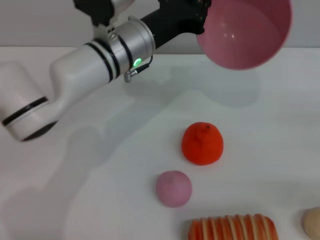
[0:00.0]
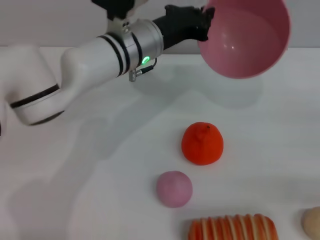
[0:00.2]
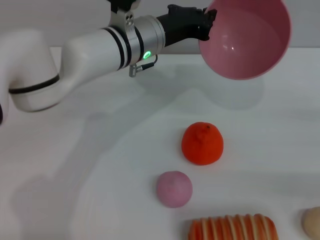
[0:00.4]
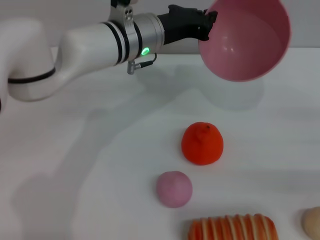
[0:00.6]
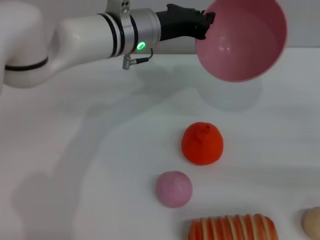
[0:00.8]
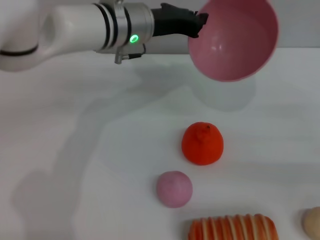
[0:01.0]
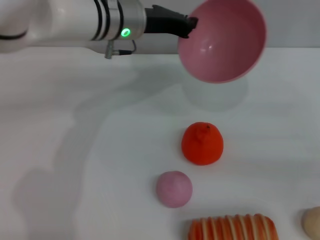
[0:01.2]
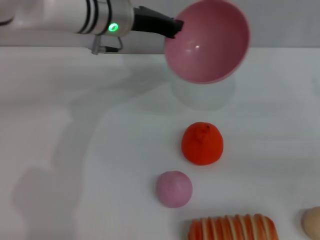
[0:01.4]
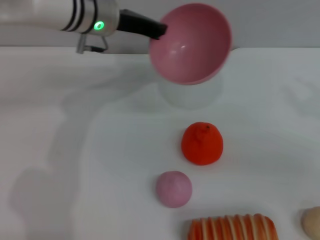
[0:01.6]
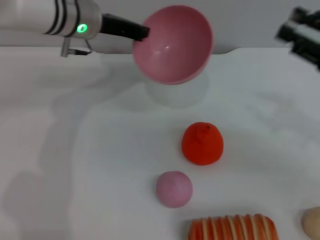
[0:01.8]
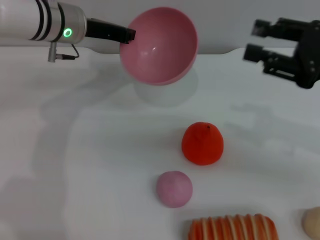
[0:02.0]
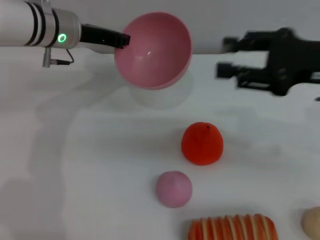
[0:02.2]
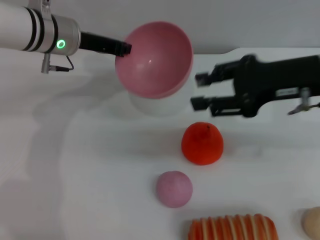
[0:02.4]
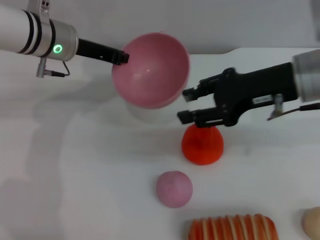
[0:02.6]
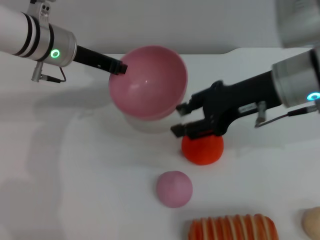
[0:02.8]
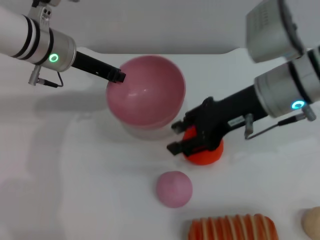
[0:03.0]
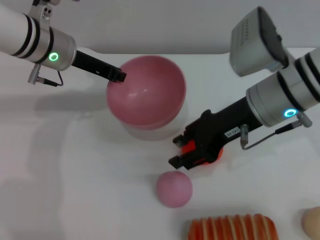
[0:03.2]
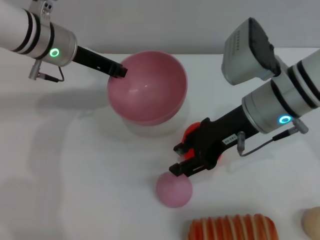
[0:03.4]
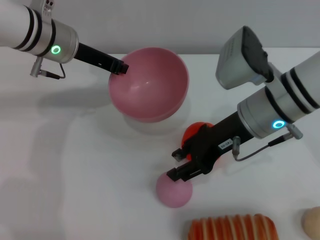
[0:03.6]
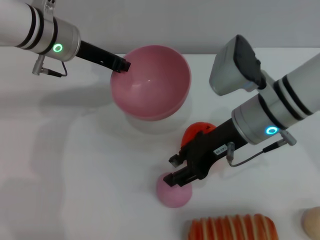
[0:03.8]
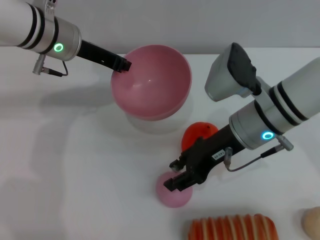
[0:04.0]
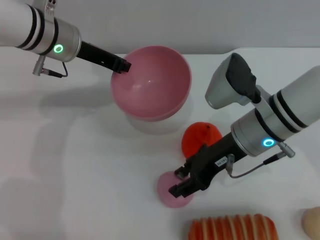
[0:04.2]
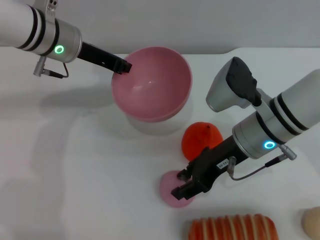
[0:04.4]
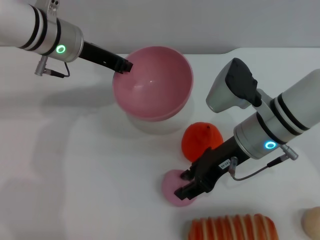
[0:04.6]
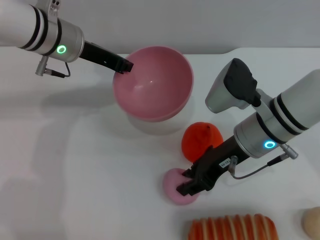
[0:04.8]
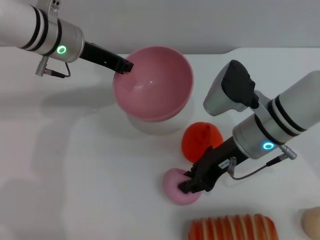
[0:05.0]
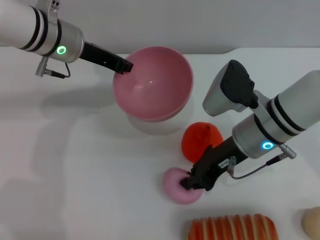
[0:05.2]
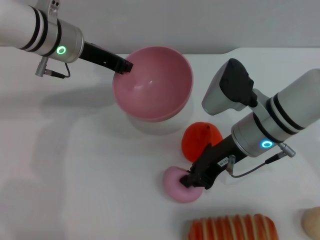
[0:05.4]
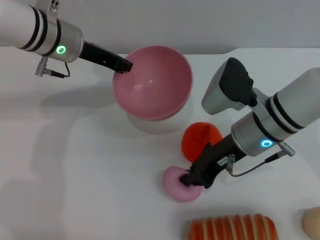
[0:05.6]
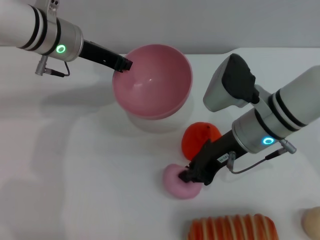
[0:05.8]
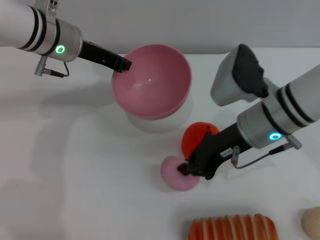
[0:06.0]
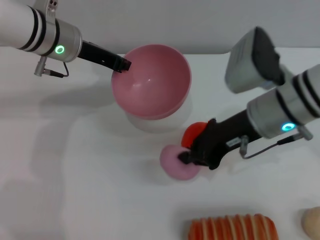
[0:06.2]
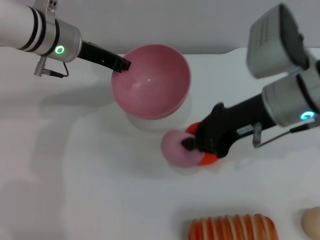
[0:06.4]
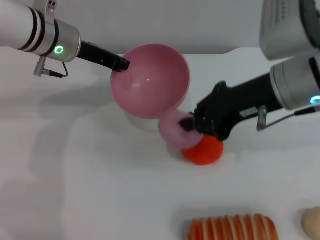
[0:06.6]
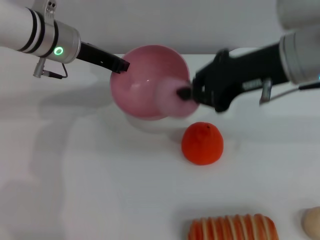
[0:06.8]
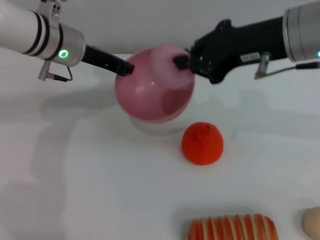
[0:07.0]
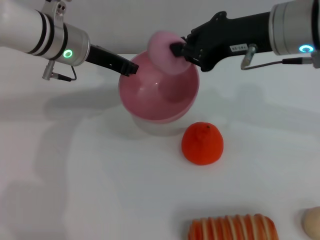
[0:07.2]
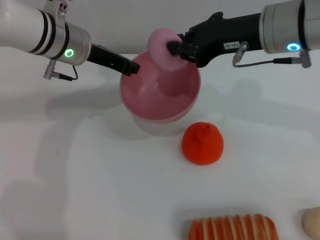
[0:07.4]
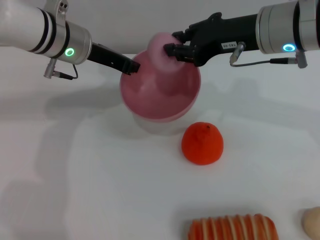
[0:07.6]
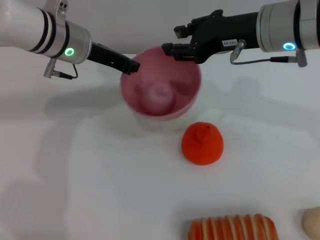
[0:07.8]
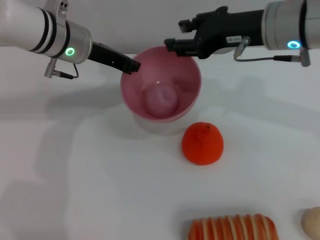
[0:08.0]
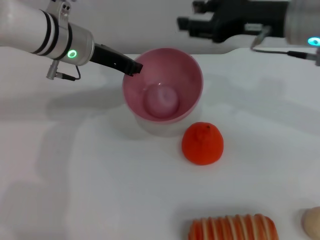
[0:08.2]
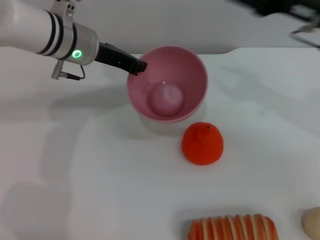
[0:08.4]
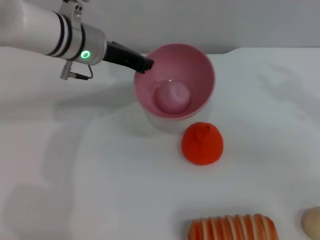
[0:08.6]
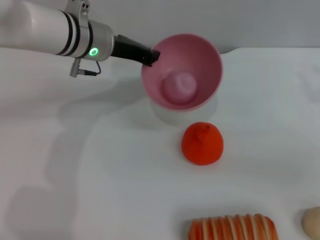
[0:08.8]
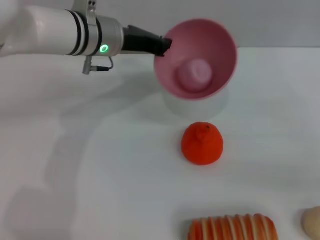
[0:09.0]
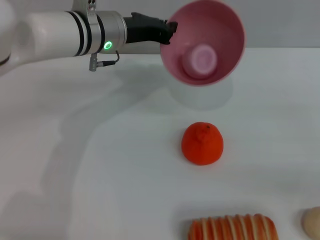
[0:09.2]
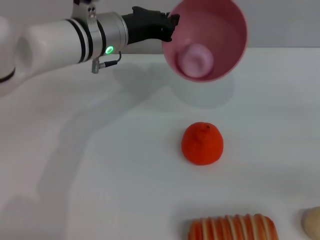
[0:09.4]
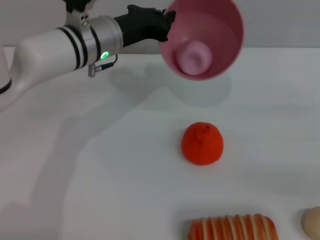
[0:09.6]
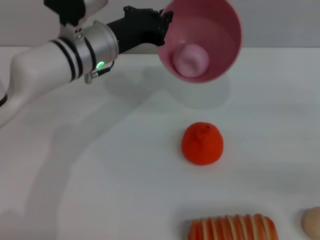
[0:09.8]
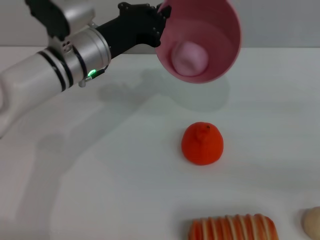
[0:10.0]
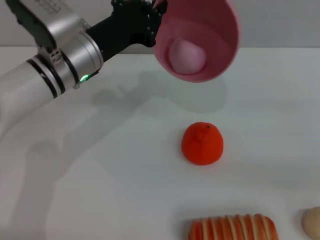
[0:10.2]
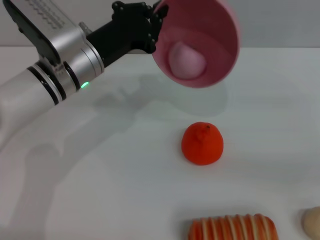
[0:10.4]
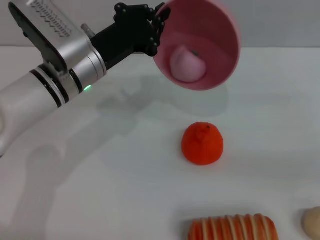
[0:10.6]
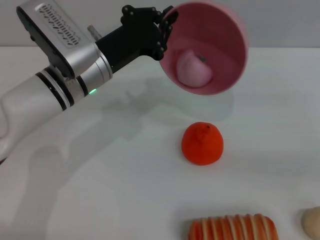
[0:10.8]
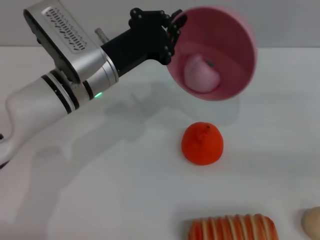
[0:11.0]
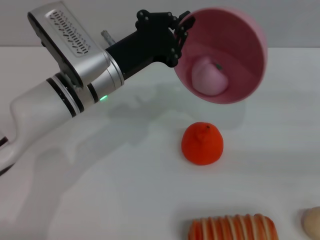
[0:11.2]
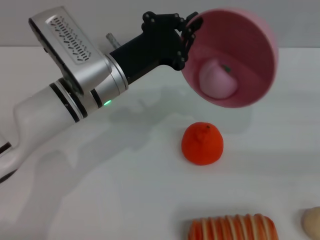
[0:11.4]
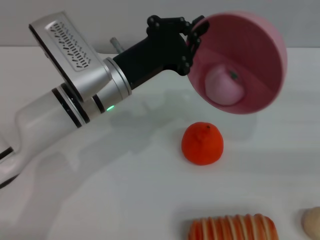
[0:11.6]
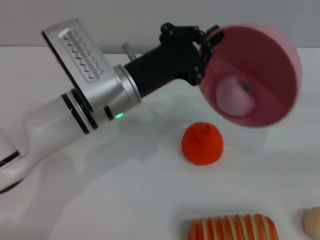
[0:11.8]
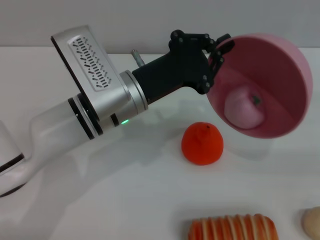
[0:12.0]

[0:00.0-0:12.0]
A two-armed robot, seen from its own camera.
Task of the whole recording: put the peach into the pink bowl and pour it out repeatedly.
Step, 0:00.0 to 0:06.2: Pick up the peach with the right gripper.
Step, 0:06.4 to 0:08.0: Place the peach into the bowl.
0:00.0 to 0:01.6: The left gripper is displaced forward by approximately 5 cm. The right gripper goes approximately 10 cm to the left.
0:01.6 to 0:03.0: The left gripper goes some 5 cm to the left. The right gripper travels to the left by roughly 20 cm.
0:03.0 to 0:04.4: The right gripper moves downward, approximately 5 cm.
0:04.4 to 0:06.0: The right gripper closes.
0:06.0 to 0:07.6: The right gripper travels upward by roughly 10 cm.
0:07.6 to 0:09.0: The right gripper goes some 25 cm to the right and backward, and opens up.
0:09.0 to 0:10.4: The left gripper moves backward, roughly 5 cm.
0:10.4 to 0:12.0: The left gripper moves to the right, some 5 cm.

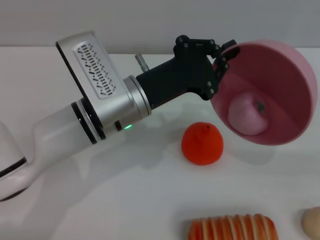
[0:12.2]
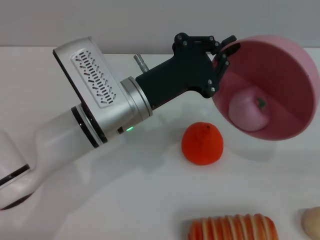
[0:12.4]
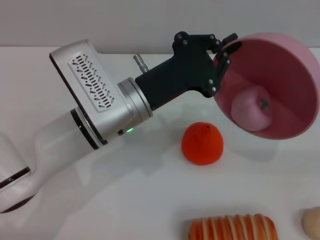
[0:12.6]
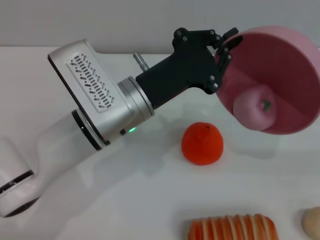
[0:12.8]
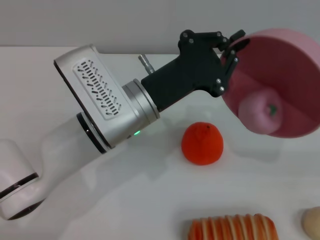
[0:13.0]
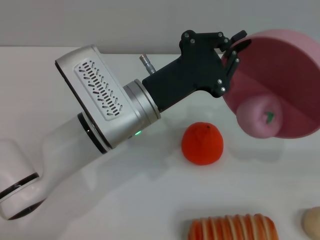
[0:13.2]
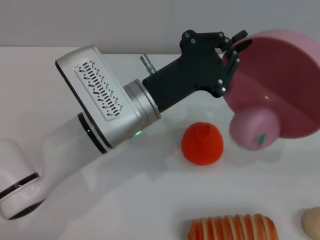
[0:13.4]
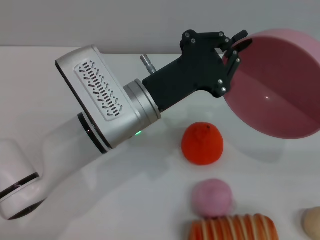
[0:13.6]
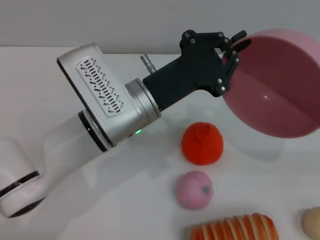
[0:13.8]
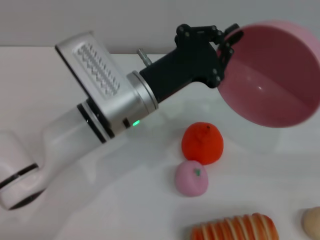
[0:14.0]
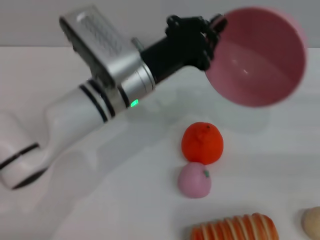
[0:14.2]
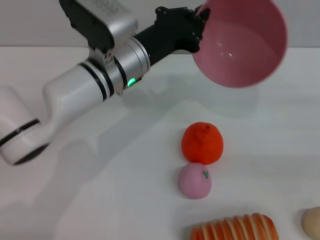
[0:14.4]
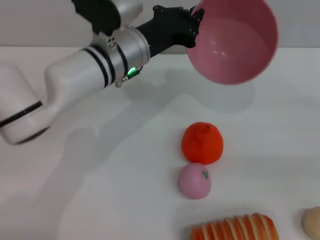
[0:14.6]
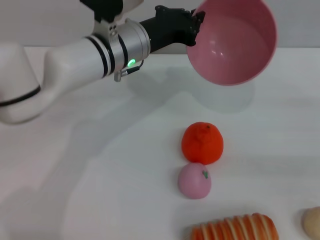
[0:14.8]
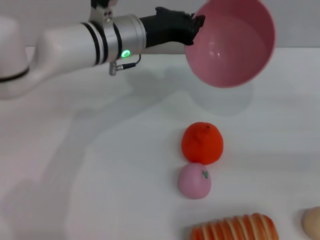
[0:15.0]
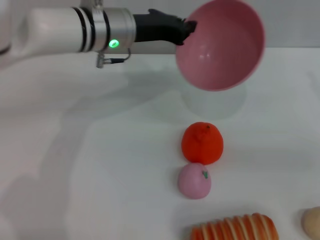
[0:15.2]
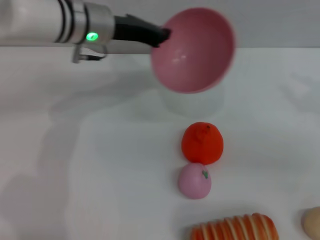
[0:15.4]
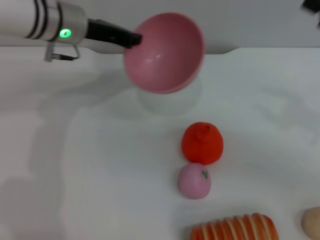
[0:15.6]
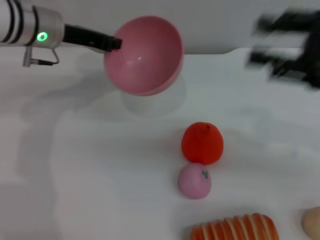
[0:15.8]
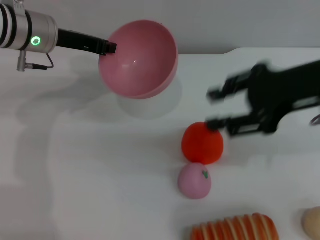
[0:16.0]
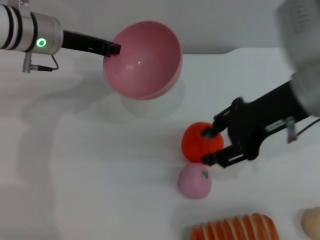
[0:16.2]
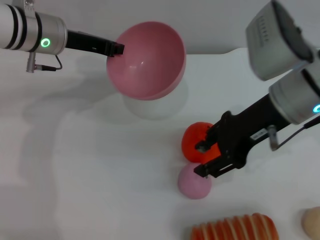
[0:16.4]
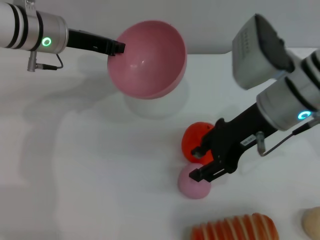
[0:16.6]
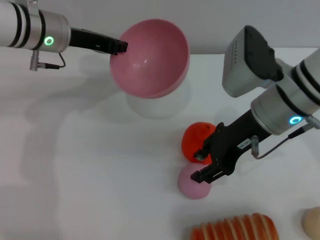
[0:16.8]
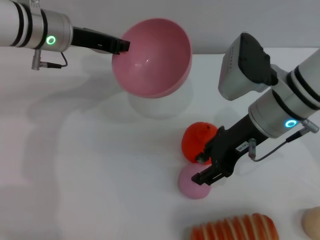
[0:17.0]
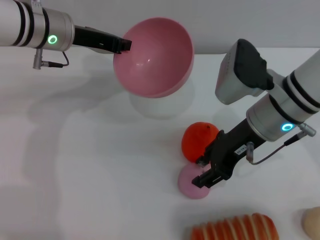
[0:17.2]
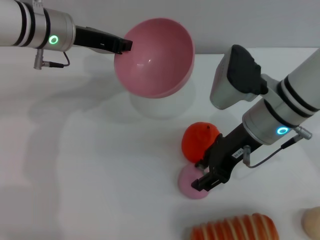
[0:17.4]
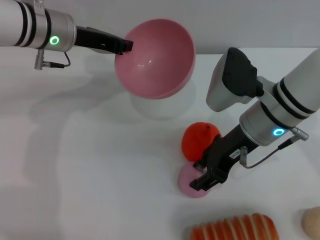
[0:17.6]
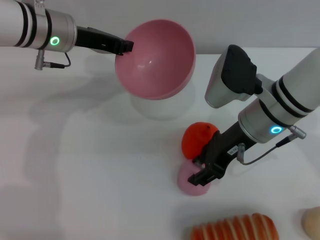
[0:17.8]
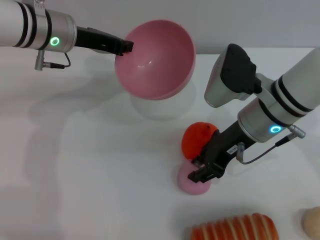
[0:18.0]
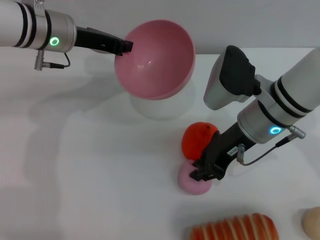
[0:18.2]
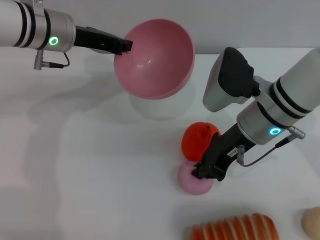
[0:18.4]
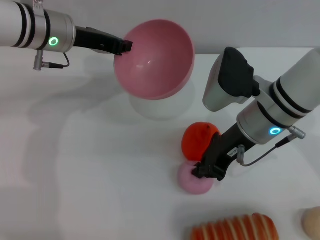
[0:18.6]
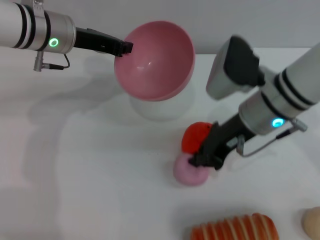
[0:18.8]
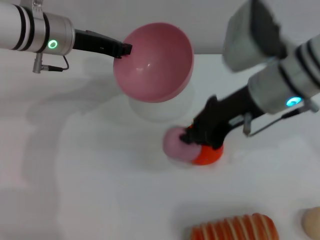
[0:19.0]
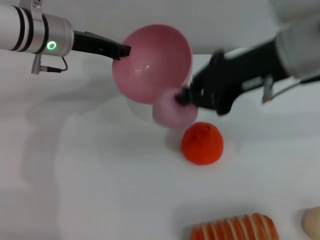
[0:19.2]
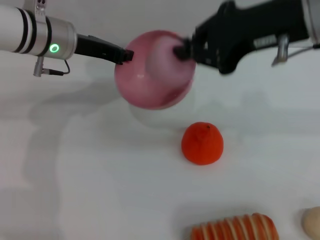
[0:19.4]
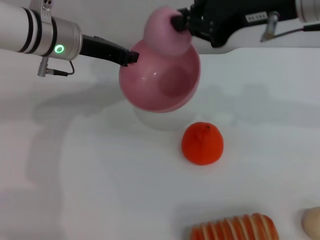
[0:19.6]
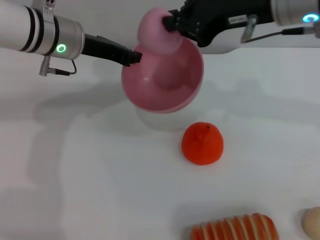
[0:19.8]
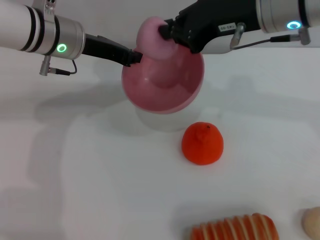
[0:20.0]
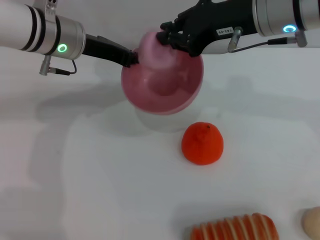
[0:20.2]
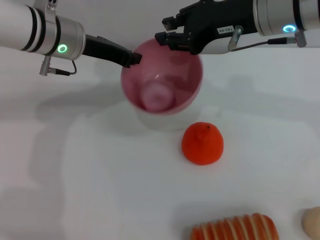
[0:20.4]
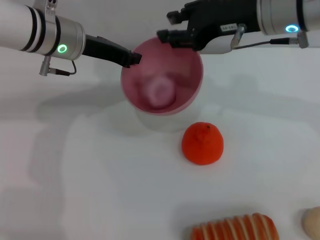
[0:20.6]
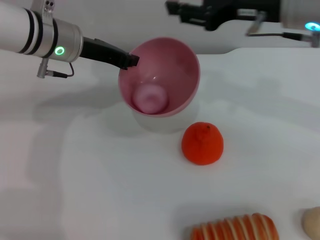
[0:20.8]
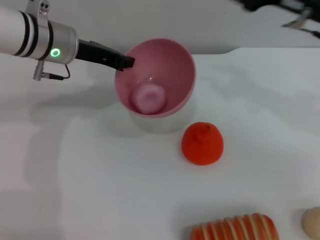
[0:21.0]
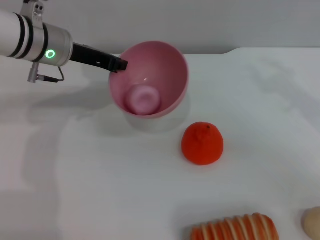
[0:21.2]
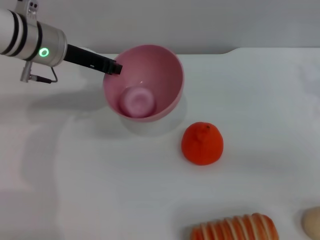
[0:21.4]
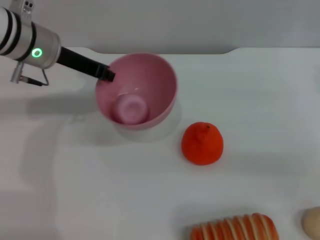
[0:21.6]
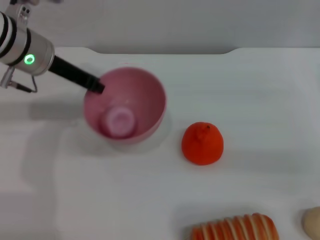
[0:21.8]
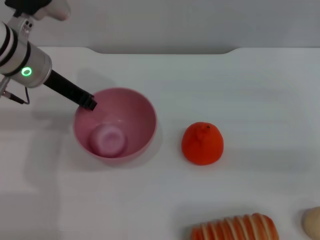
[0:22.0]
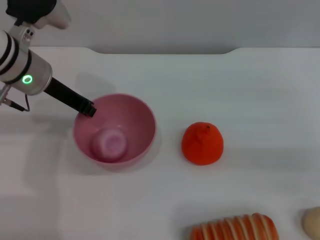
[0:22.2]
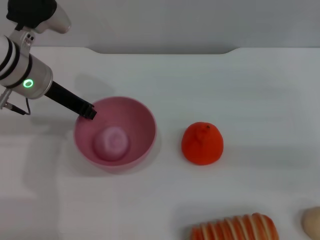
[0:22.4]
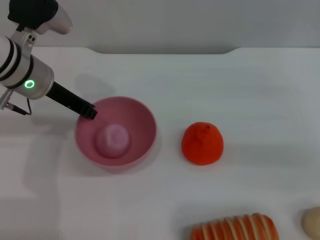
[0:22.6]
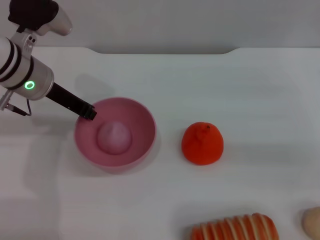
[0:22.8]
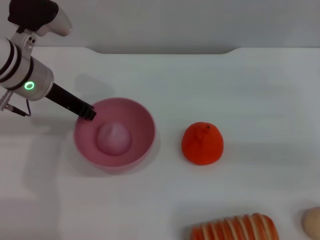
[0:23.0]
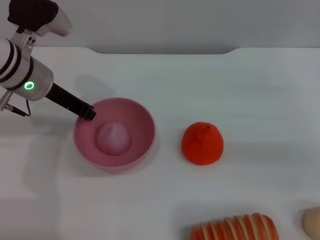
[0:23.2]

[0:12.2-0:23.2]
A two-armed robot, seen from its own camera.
Task of the whole recording: put the peach into the pink bowl and pour it out repeatedly.
Step, 0:12.2 to 0:14.2: Pour the peach out of bowl.
Step, 0:14.4 to 0:18.8: Pick up the peach with the right gripper.
Step, 0:19.0 to 0:20.6: Place the peach into the bowl.
0:12.2 to 0:13.8: There are only small adjustments of the grippers.
0:13.8 to 0:15.4: The right gripper travels to the left by roughly 5 cm; the left gripper is displaced forward and to the left by roughly 15 cm.
0:15.4 to 0:17.0: The left gripper moves to the left, roughly 5 cm; the right gripper heads to the left, covering some 20 cm.
0:17.0 to 0:18.4: The right gripper closes up.
0:18.4 to 0:20.0: The right gripper goes some 15 cm upward, and closes its fingers.
0:20.0 to 0:21.6: The right gripper shifts approximately 25 cm to the right and downward, and opens.
